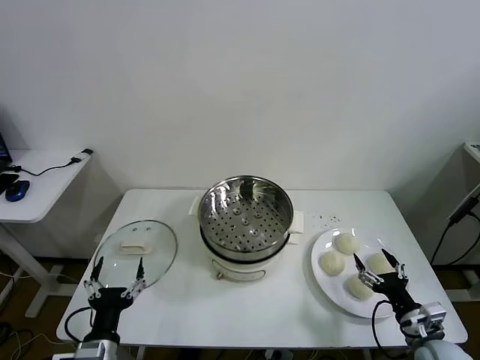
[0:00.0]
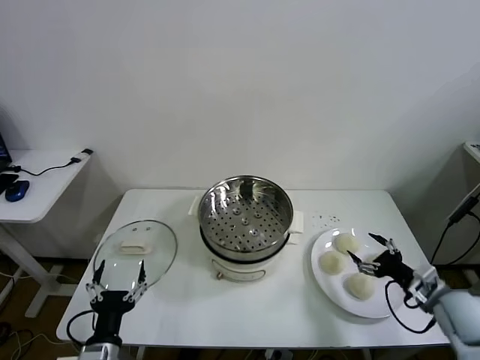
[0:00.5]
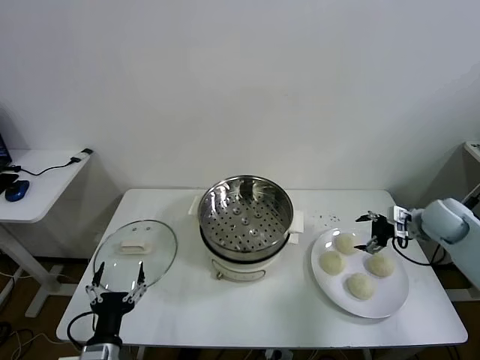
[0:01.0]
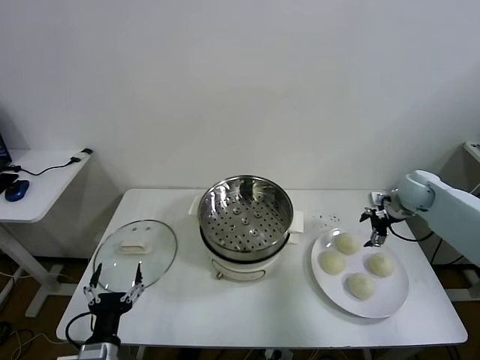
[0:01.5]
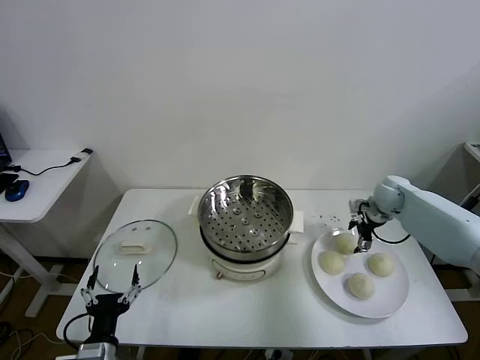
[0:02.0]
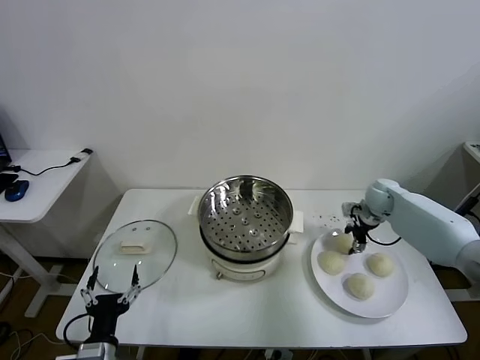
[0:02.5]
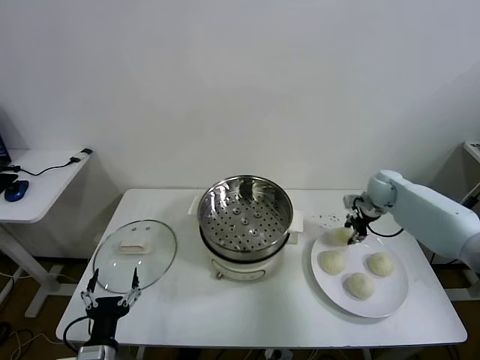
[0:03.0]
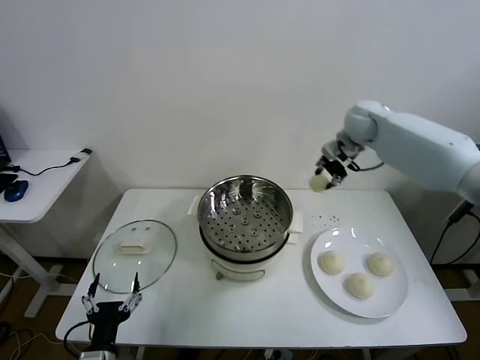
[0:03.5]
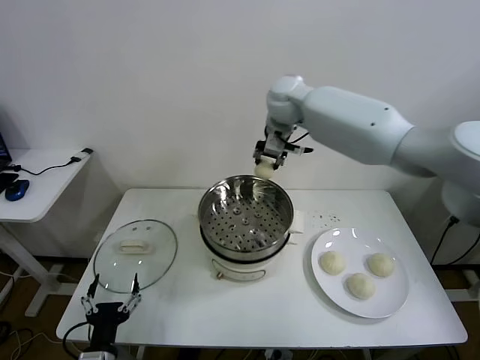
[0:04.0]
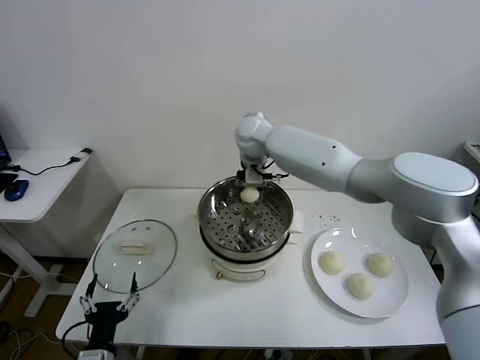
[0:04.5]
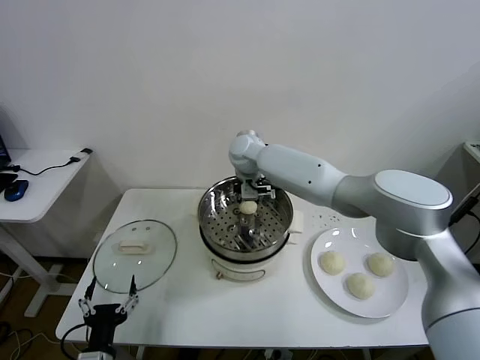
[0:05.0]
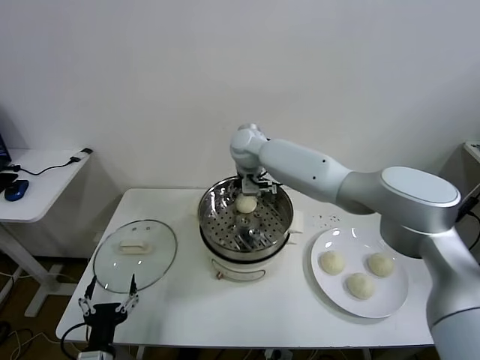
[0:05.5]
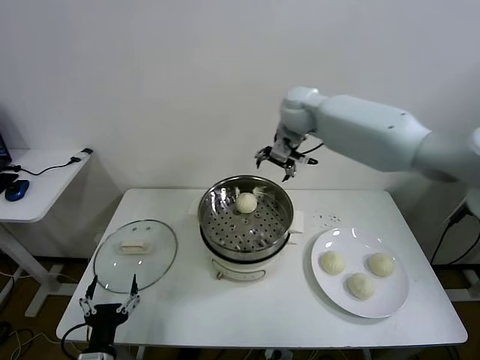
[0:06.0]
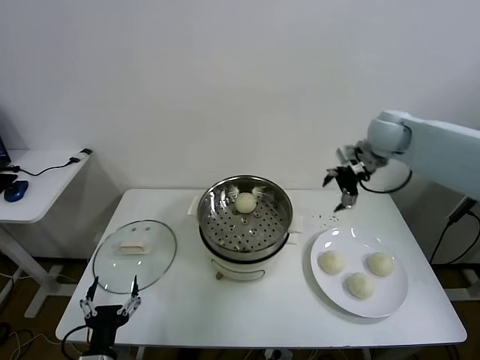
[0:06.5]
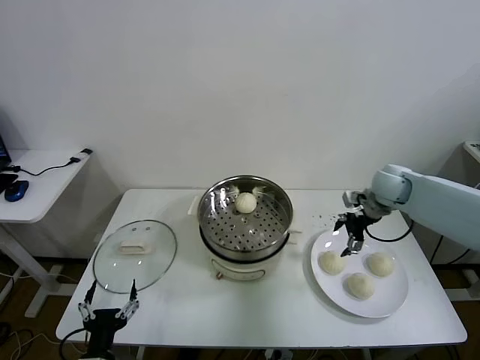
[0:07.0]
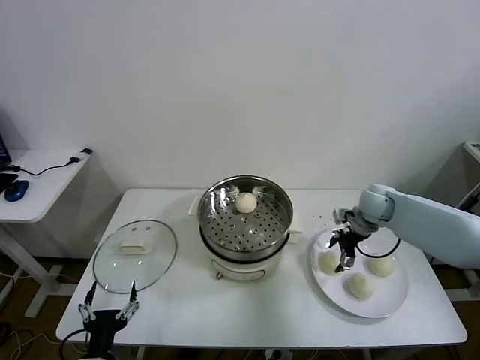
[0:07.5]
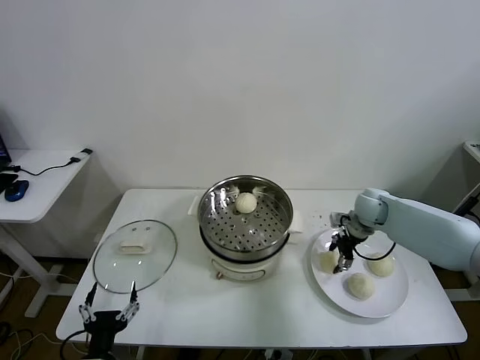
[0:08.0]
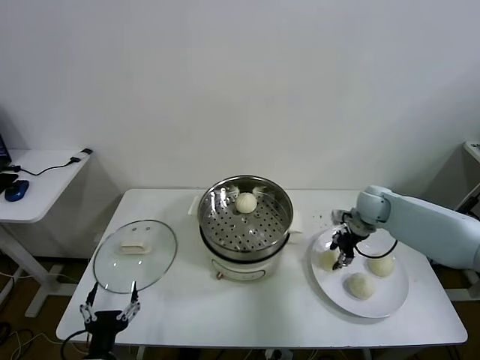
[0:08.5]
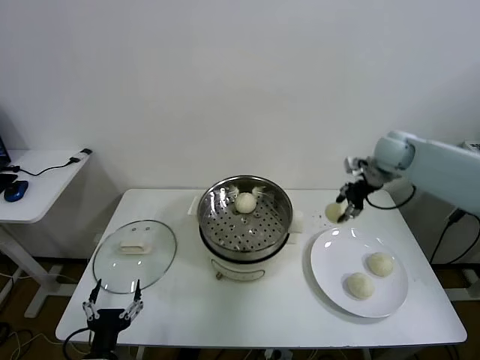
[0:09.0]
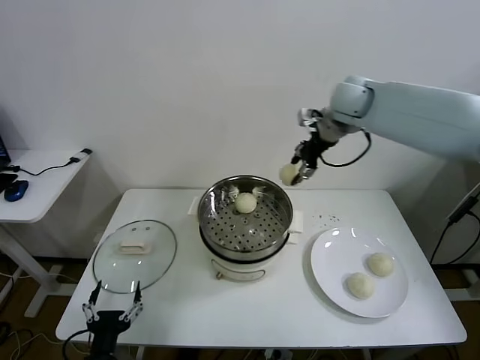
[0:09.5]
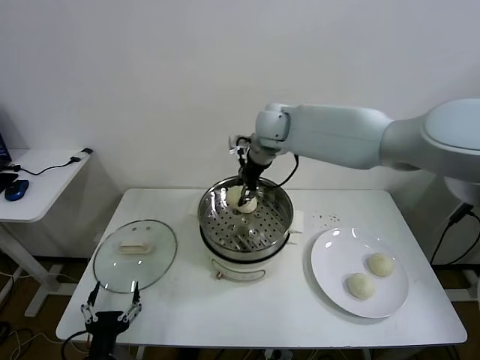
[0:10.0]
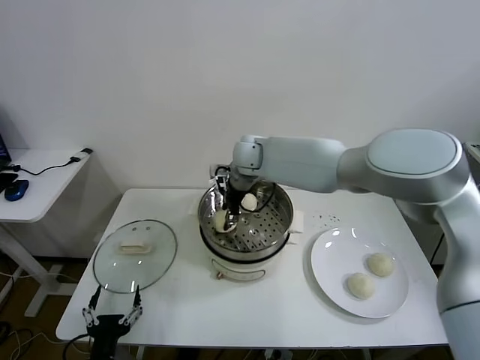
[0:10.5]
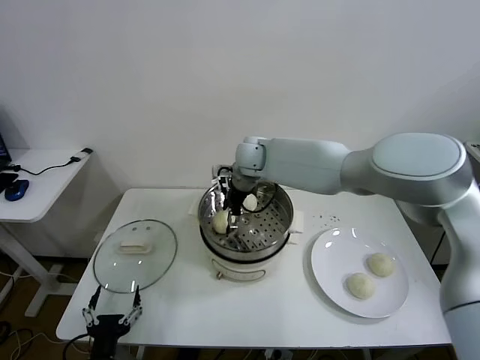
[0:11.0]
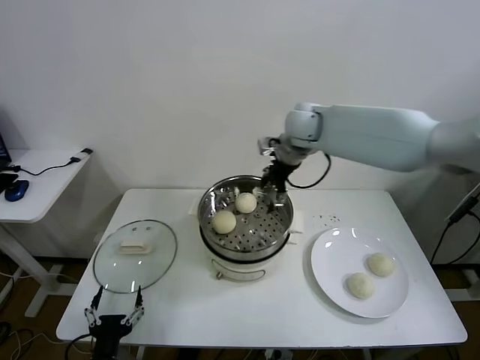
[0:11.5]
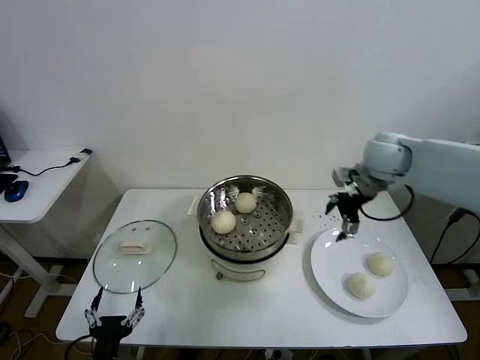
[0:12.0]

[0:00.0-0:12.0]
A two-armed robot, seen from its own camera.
Task of the whole recording: take steamed baozi put them in steamer.
Step, 0:00.0 to 0:02.5: Grasp the baozi in the plate with right gripper.
Step, 0:03.0 to 0:05.5: Place the baozi on the steamer with right gripper.
Step, 0:06.0 to 0:08.0: Grasp the baozi in the plate with right gripper.
Step, 0:08.5 to 0:11.0: Place the baozi on the steamer with right gripper.
0:02.0 to 0:04.0: The right gripper travels to the left and upward by approximately 40 cm, and closes its fingers.
0:04.0 to 0:06.0: The right gripper shifts about 10 cm to the right, and opens.
0:06.0 to 0:08.0: The right gripper heads downward and to the right, covering roughly 30 cm, and closes.
0:08.0 to 0:10.0: The right gripper goes roughly 35 cm to the left and upward.
0:10.0 to 0:12.0: The right gripper shifts approximately 25 cm to the right, and opens its fingers.

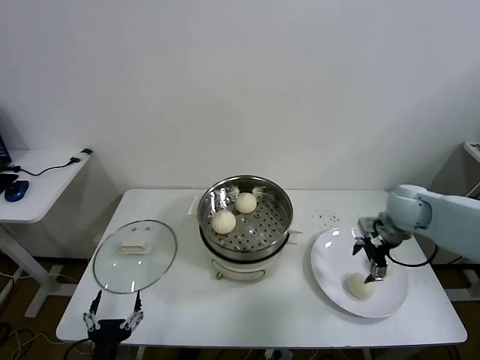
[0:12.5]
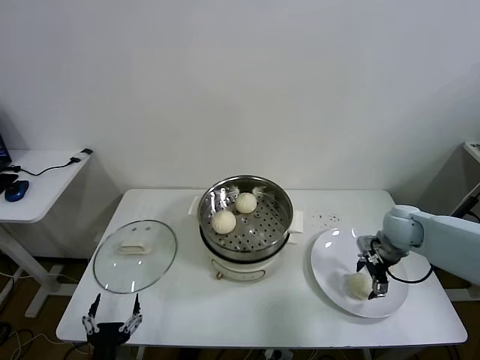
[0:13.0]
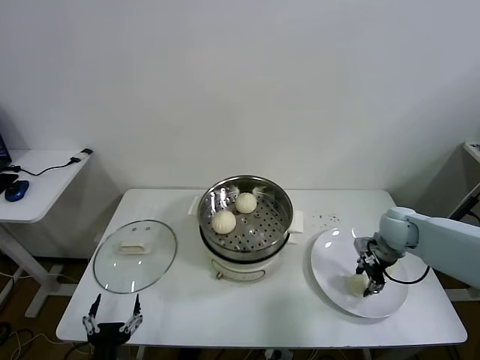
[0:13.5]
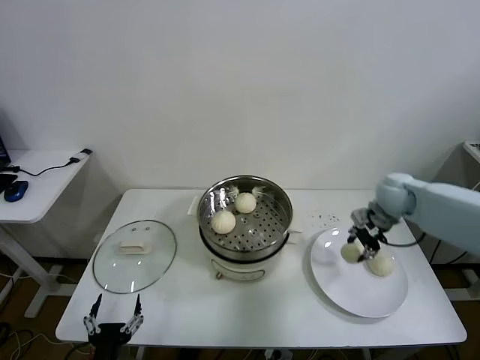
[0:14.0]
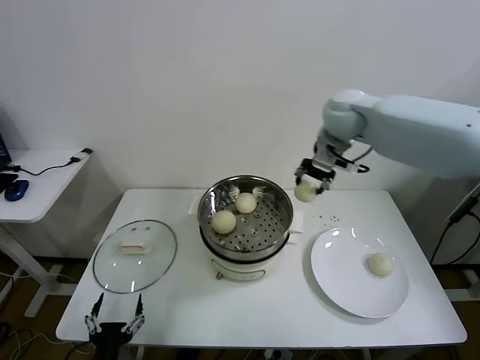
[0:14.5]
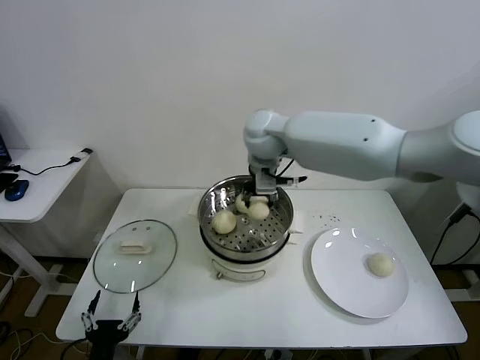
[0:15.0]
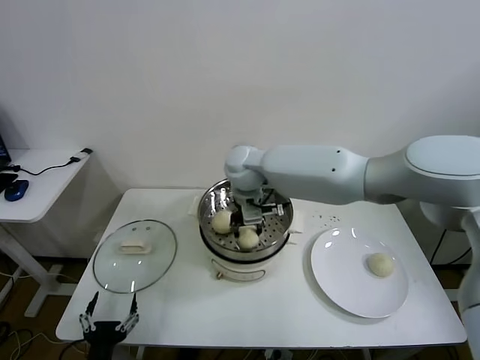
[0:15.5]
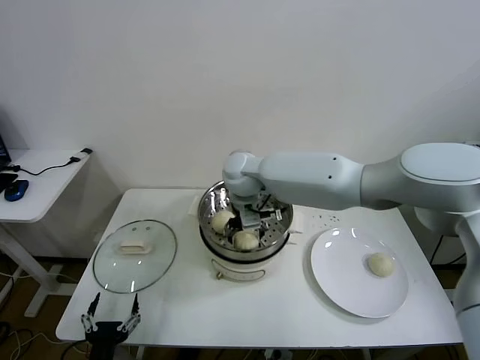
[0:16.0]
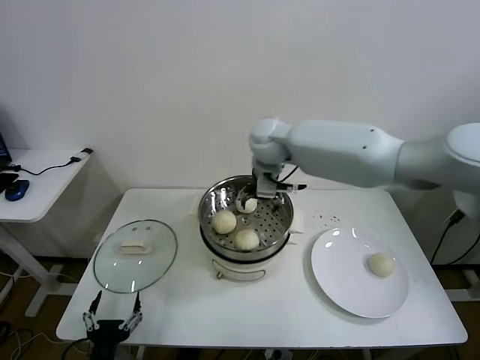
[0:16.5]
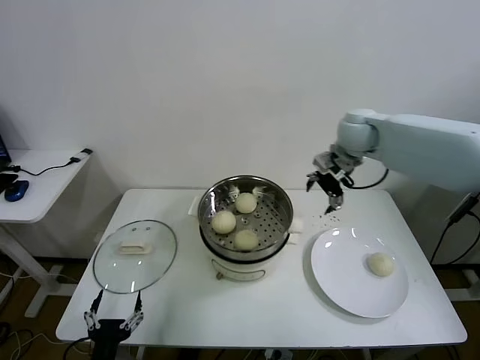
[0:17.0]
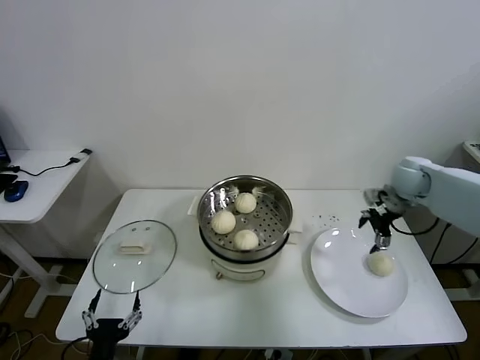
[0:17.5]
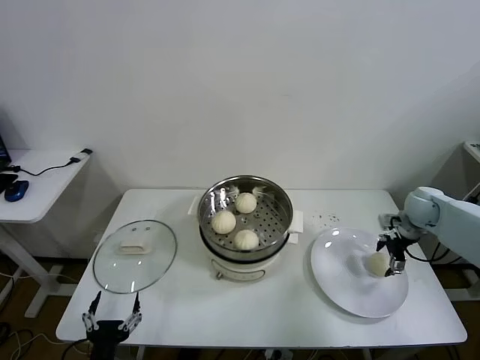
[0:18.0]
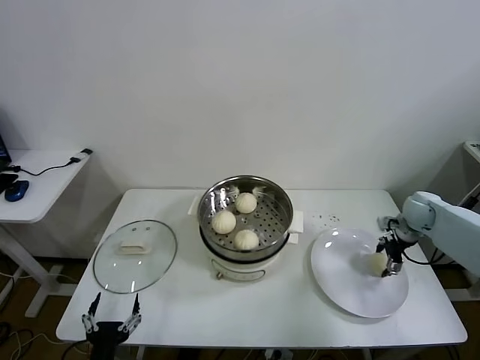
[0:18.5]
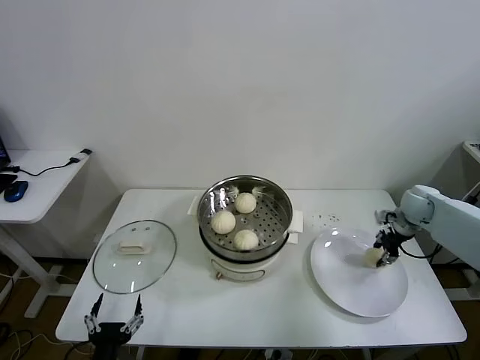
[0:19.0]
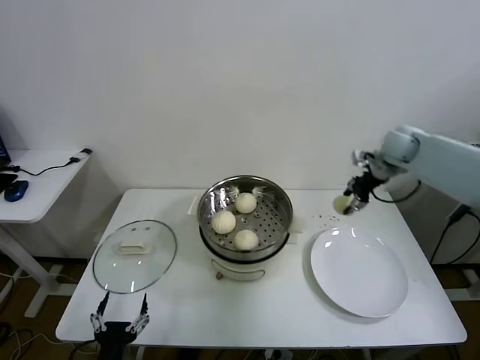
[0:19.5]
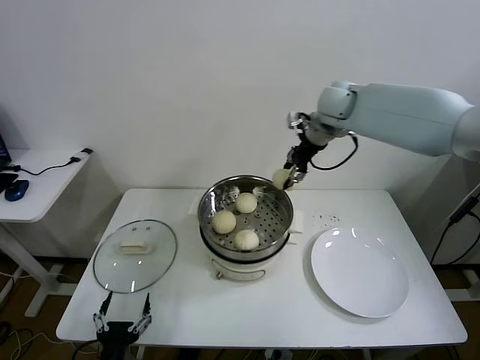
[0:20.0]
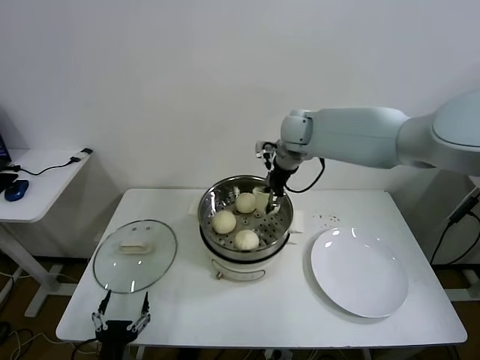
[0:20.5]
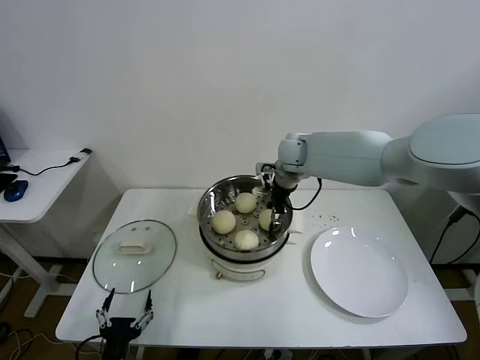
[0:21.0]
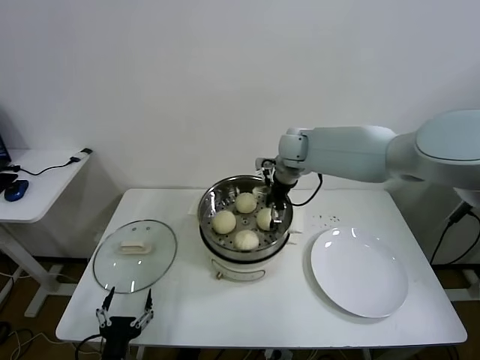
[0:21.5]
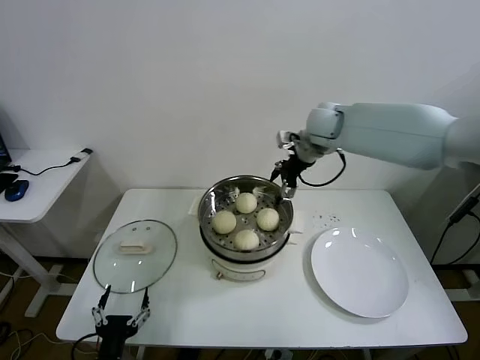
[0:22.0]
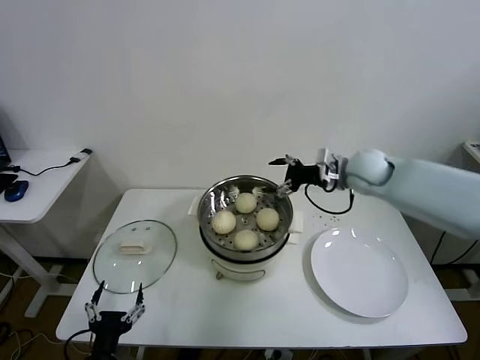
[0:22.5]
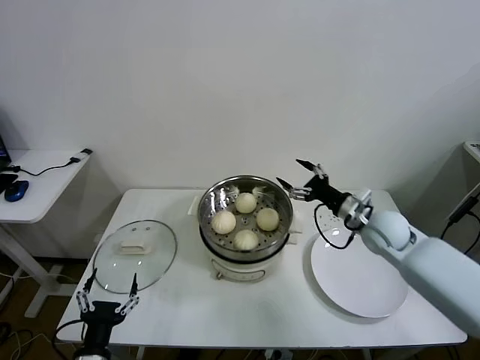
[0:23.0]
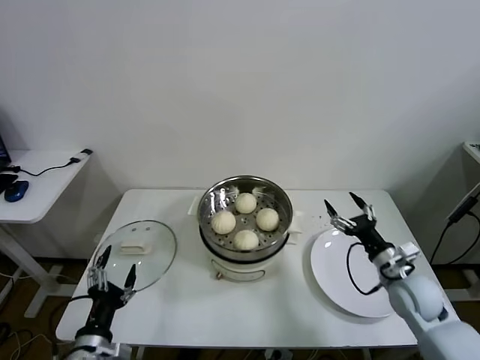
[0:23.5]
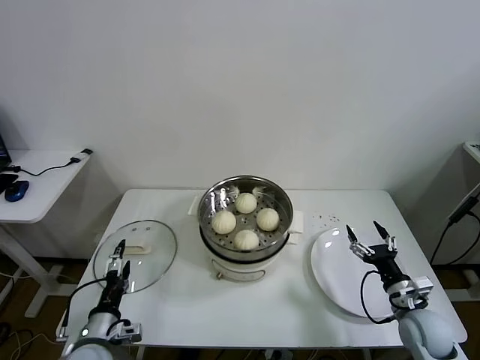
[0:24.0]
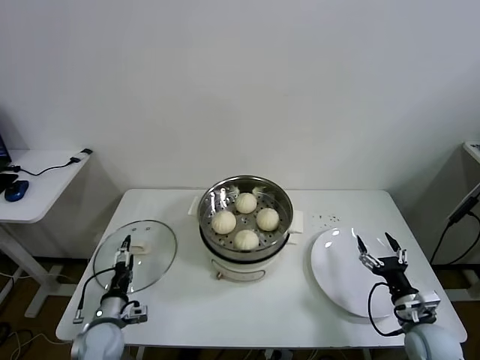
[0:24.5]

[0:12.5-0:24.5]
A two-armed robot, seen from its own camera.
Task of the whole recording: take steamed baozi put them in steamer.
Step, 0:14.0 to 0:16.0: Place the baozi on the steamer with right gripper.
Step, 0:16.5 to 0:18.5: Grasp the baozi in the plate with right gripper.
Step, 0:19.0 to 0:21.5: Place the baozi on the steamer with right gripper.
0:12.5 to 0:14.5: The right gripper goes some 30 cm upward, to the left and forward, and closes.
0:14.5 to 0:16.5: The right gripper heads to the left and downward, covering approximately 15 cm, and opens up.
0:16.5 to 0:18.5: The right gripper goes approximately 40 cm to the right and downward.
0:18.5 to 0:20.5: The right gripper moves to the left and upward, approximately 40 cm, and closes its fingers.
0:20.5 to 0:22.5: The right gripper heads to the right, backward and downward, covering some 20 cm, and opens up.
0:22.5 to 0:24.5: The right gripper travels backward, downward and to the right by some 40 cm; the left gripper is displaced forward and downward by roughly 15 cm.

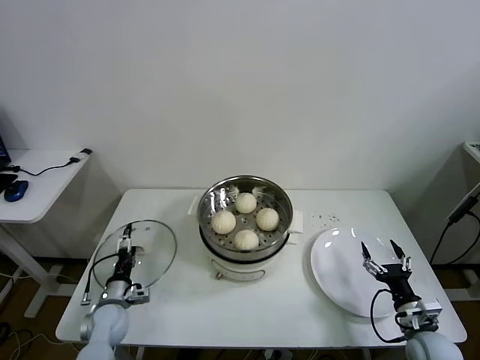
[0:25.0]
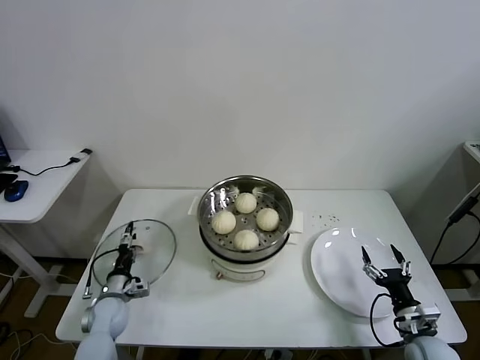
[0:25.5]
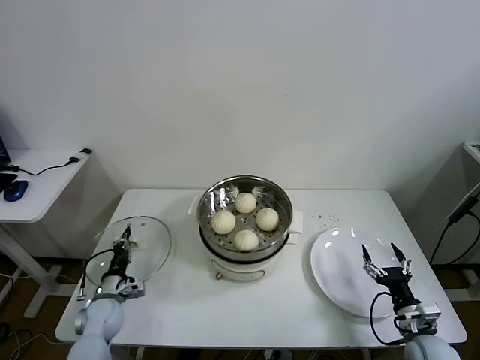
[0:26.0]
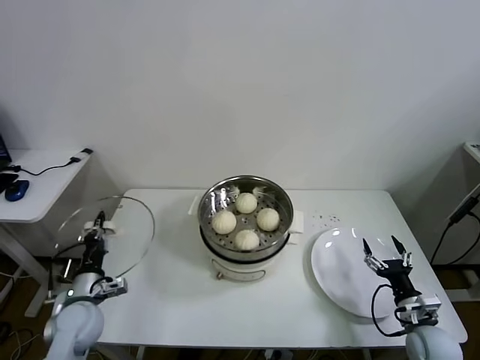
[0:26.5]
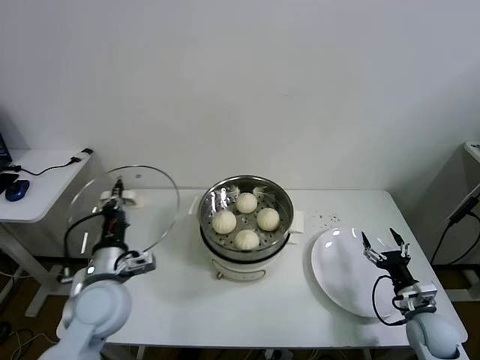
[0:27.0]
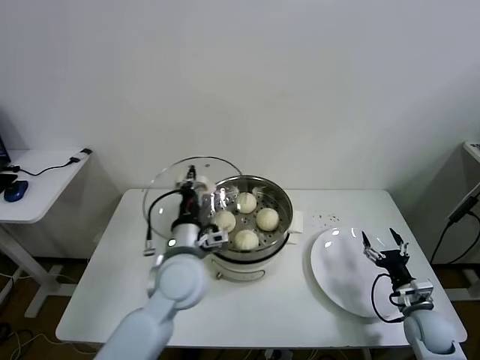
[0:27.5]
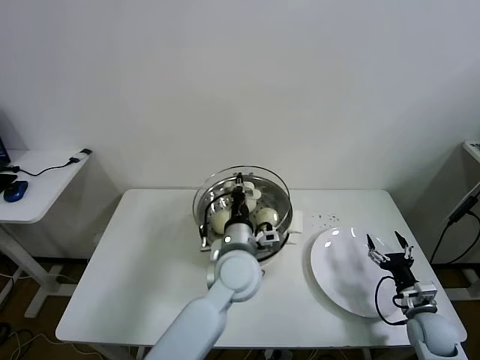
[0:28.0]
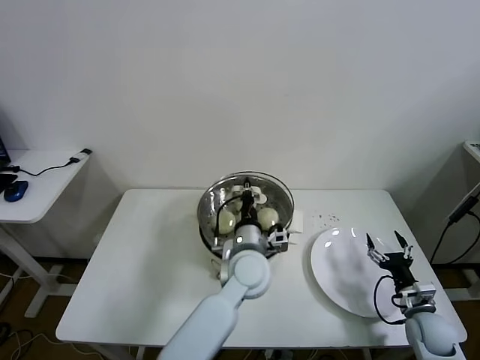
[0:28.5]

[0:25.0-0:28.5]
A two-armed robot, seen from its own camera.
Task of the whole recording: take steamed baozi put them in steamer.
0:25.0 to 0:27.0: The left gripper travels upward by about 20 cm, and closes.
0:27.0 to 0:28.5: The left gripper travels to the right by approximately 30 cm.
